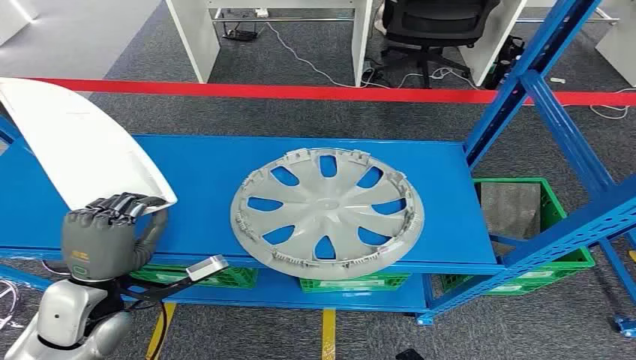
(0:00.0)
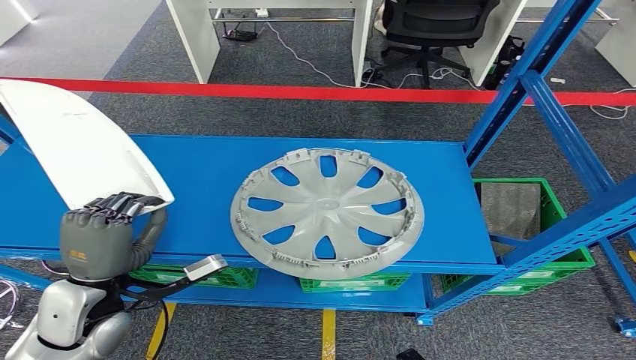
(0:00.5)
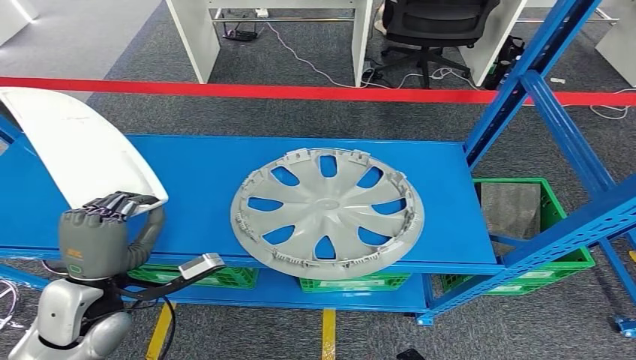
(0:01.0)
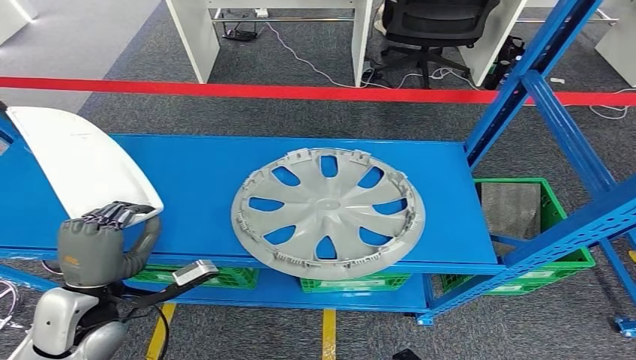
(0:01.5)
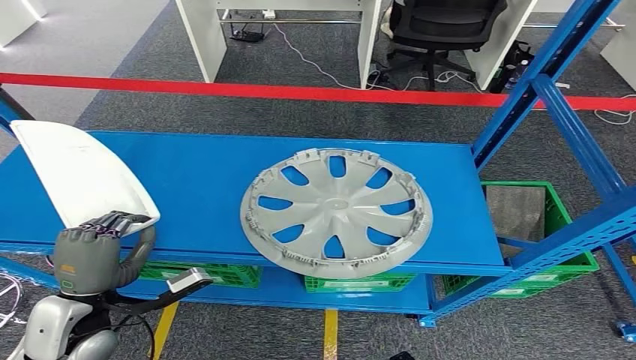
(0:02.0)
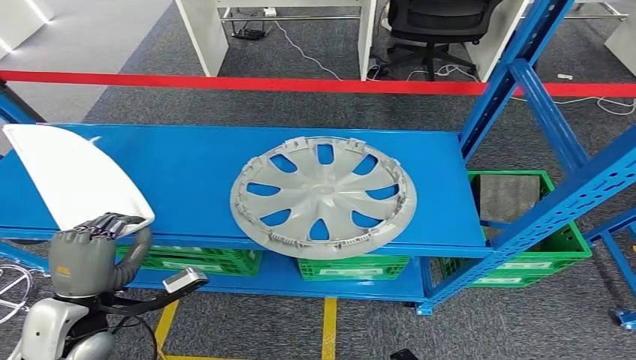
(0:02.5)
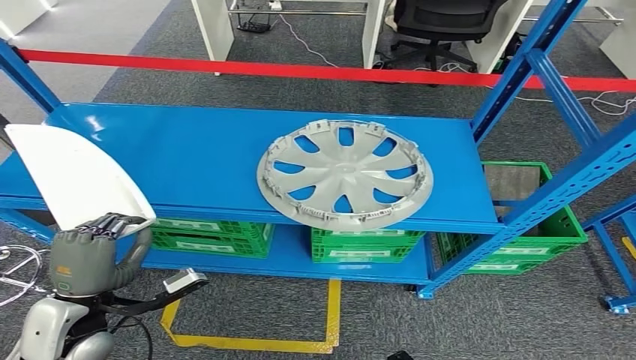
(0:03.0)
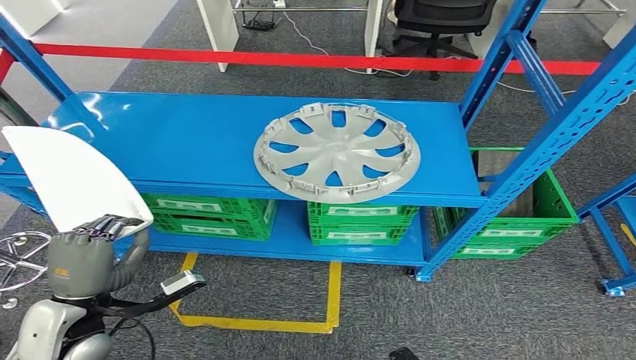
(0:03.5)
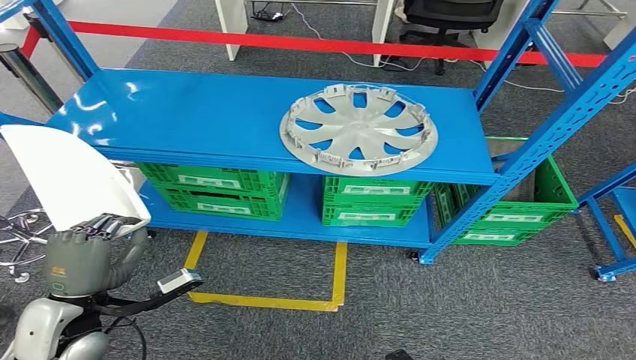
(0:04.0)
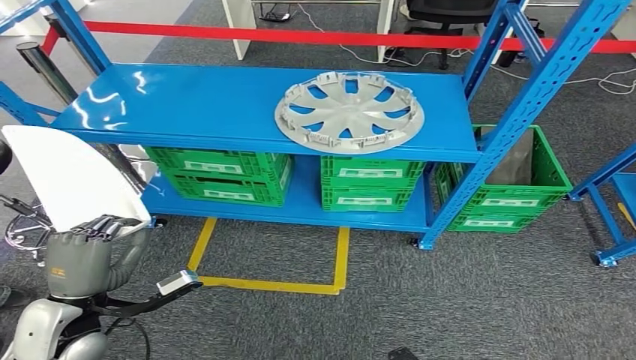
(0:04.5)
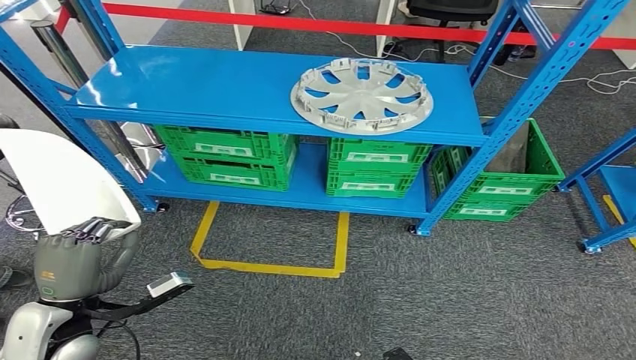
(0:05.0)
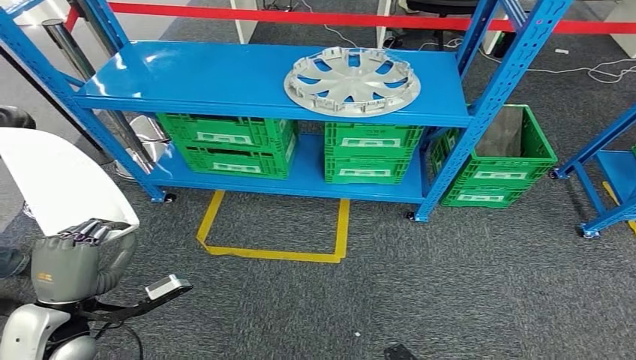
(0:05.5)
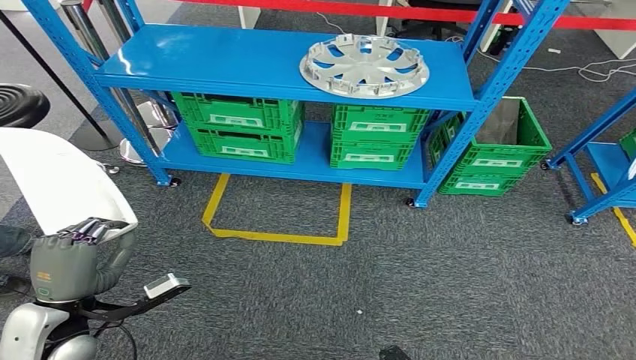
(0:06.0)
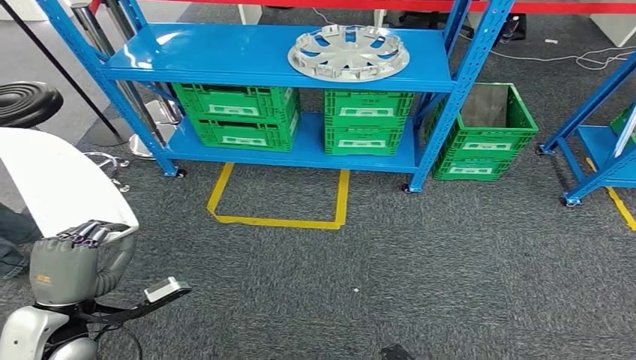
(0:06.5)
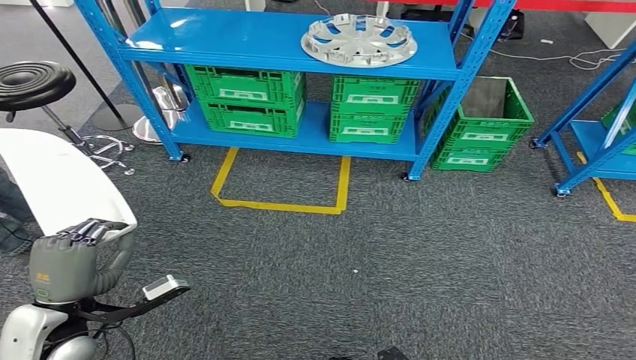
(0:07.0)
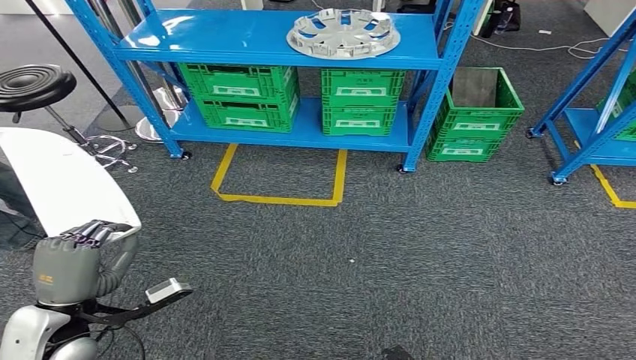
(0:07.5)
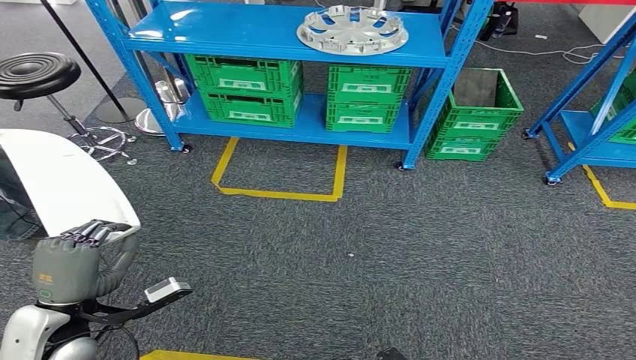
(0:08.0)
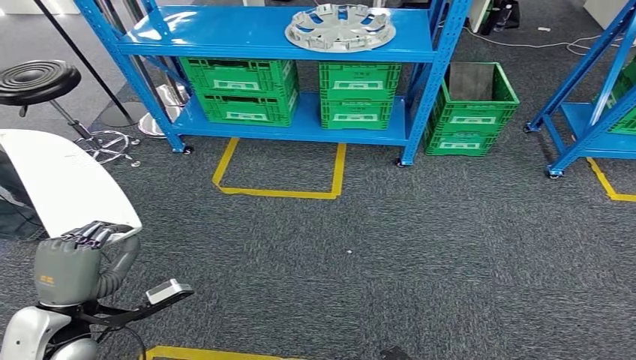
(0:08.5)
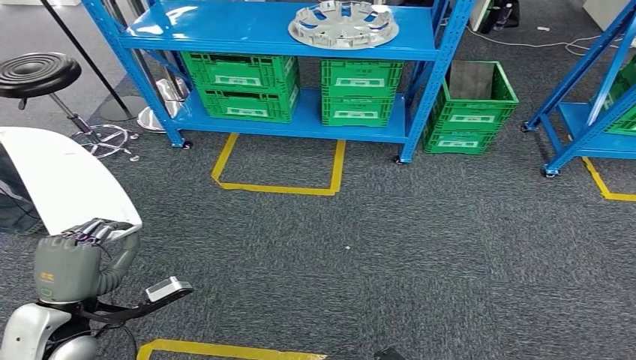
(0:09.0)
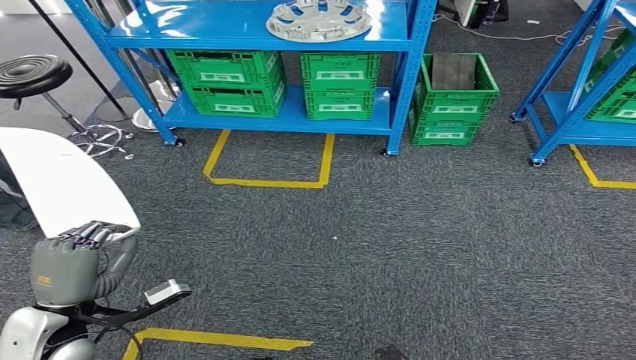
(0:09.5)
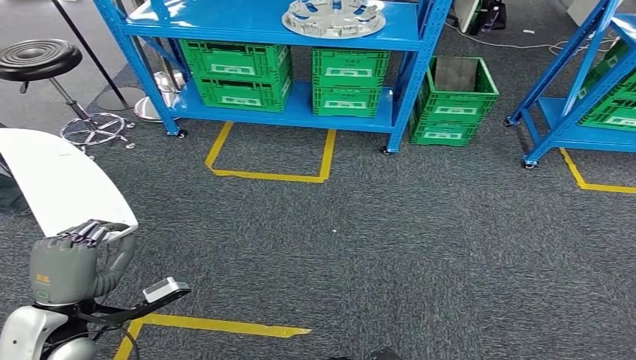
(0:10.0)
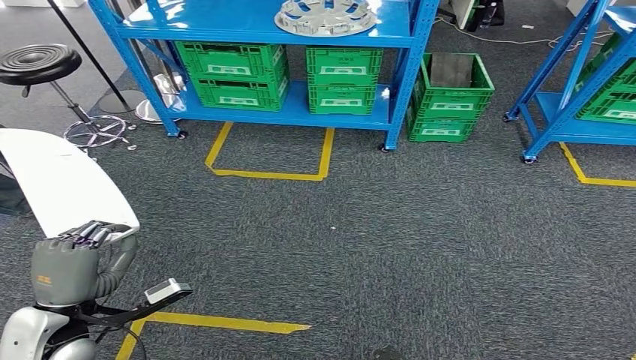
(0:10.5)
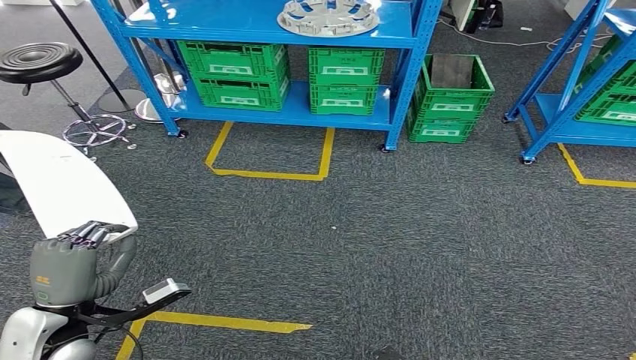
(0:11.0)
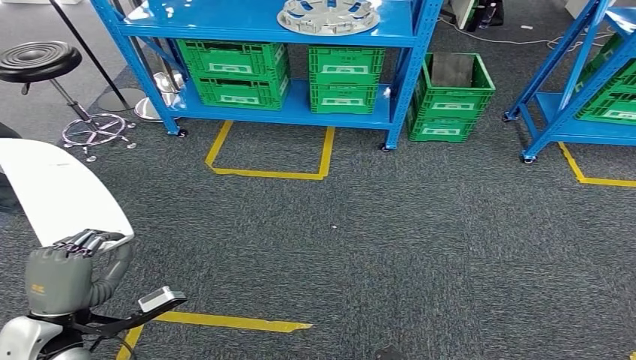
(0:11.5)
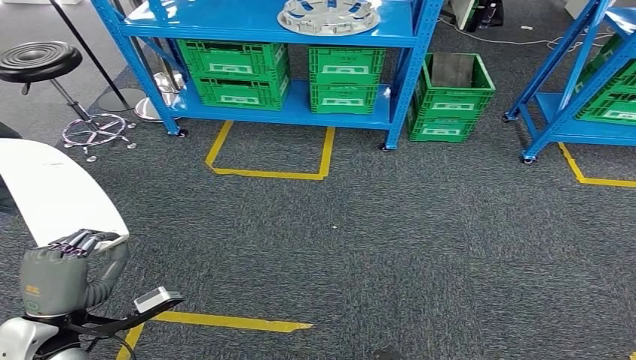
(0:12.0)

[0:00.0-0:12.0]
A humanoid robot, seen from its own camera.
Step, 0:00.0 to 0:01.5: Take small components from the rack.
0:10.0 to 0:12.0: There are only small adjustments of the hands.

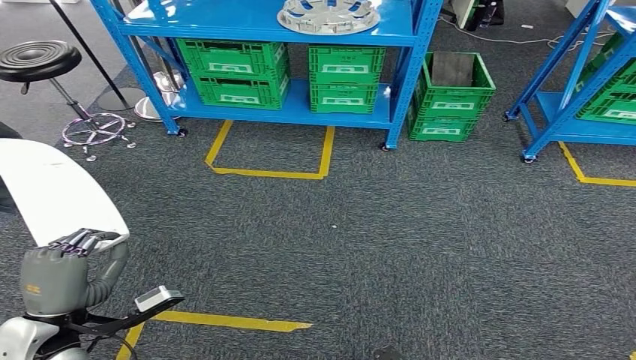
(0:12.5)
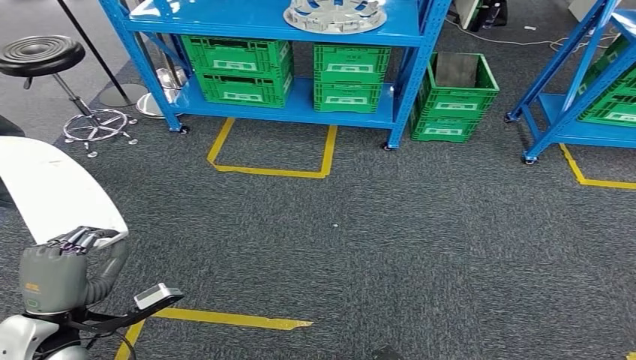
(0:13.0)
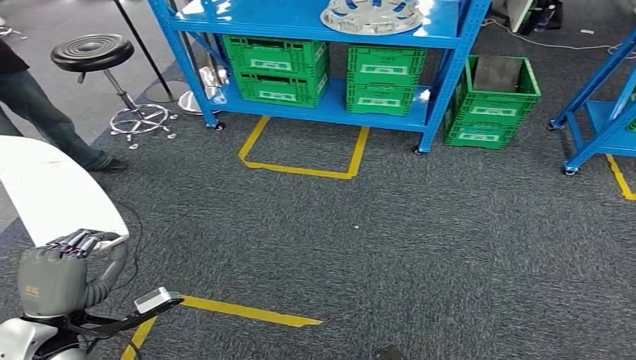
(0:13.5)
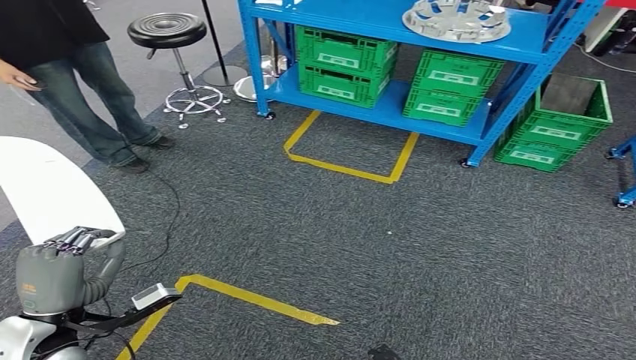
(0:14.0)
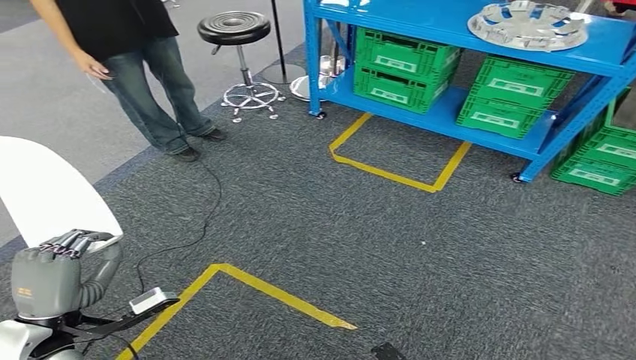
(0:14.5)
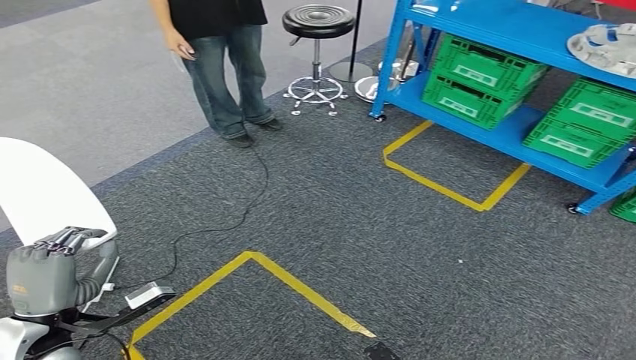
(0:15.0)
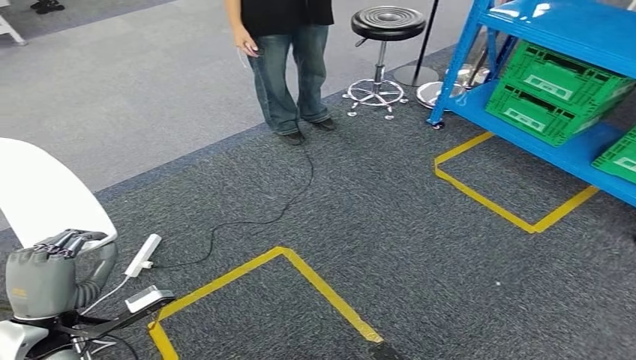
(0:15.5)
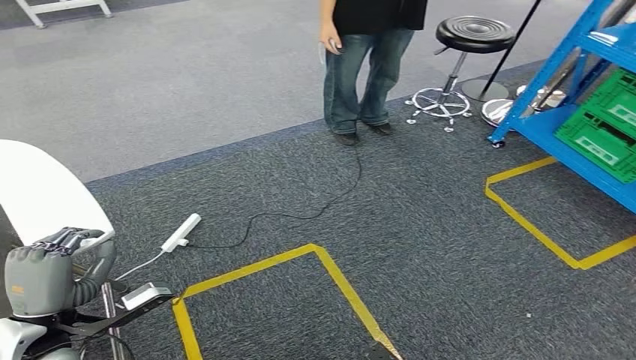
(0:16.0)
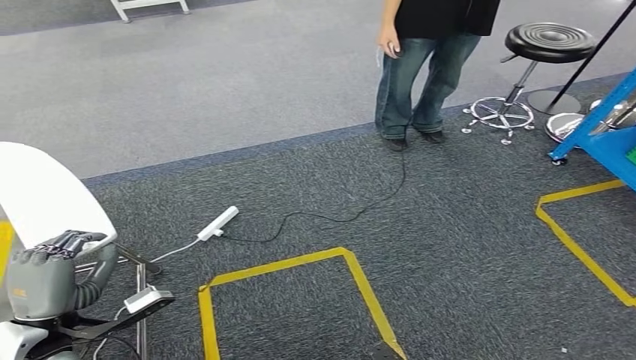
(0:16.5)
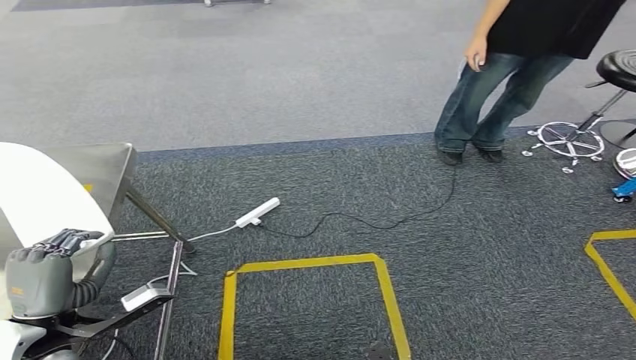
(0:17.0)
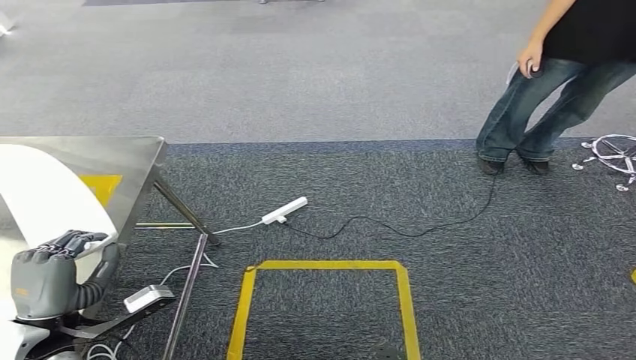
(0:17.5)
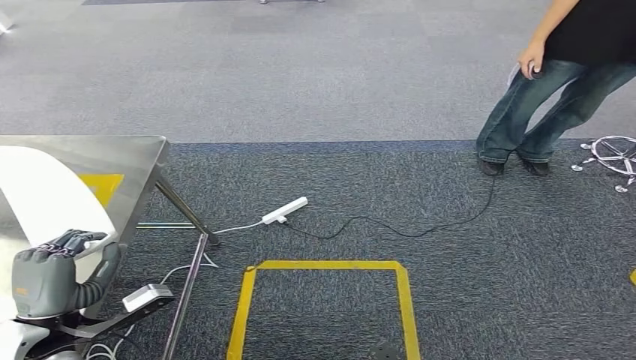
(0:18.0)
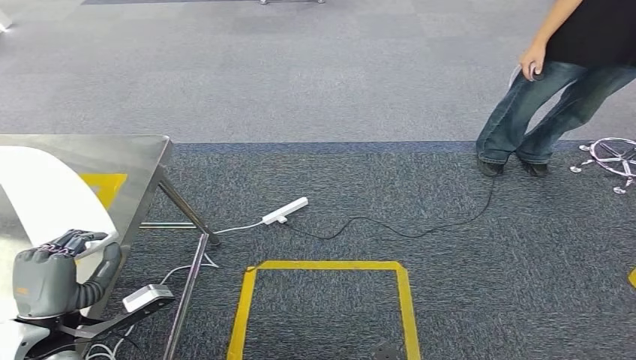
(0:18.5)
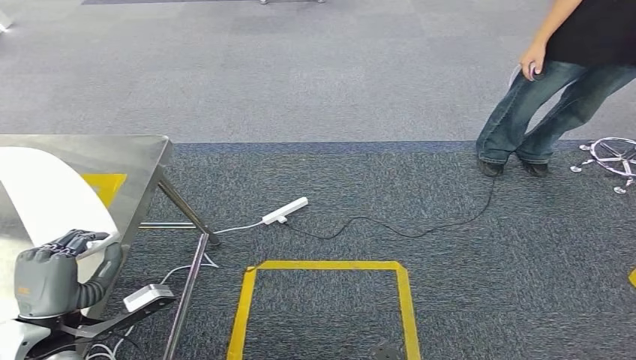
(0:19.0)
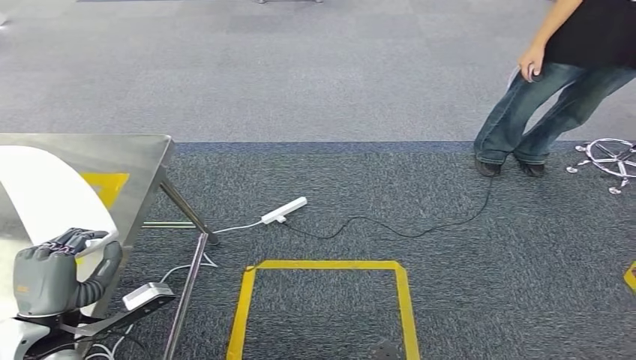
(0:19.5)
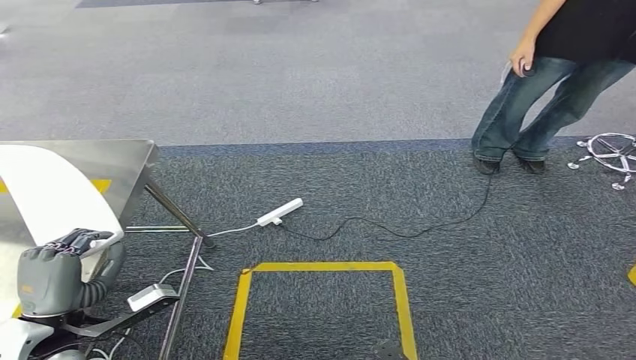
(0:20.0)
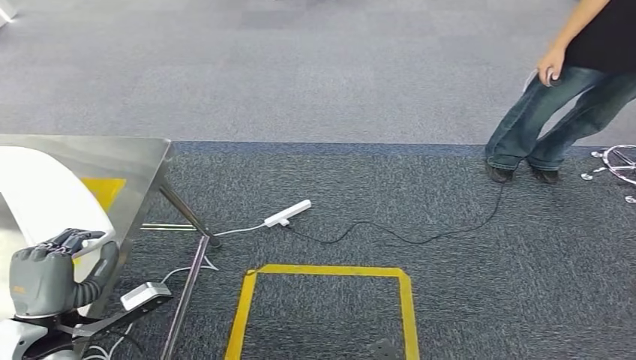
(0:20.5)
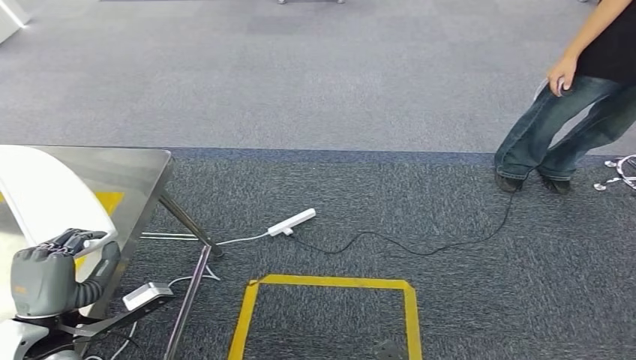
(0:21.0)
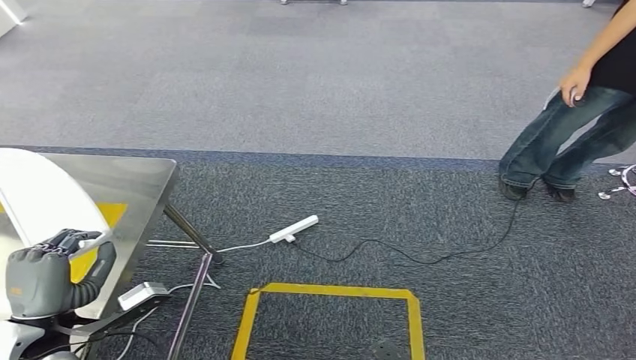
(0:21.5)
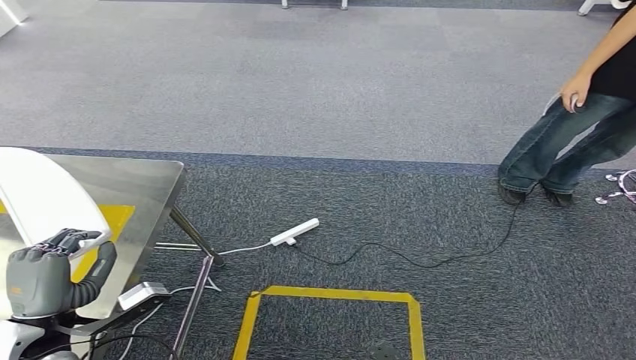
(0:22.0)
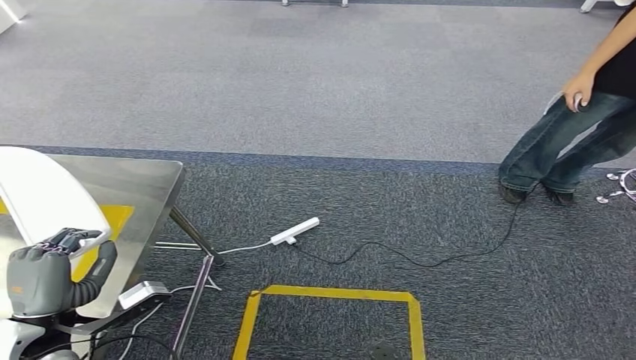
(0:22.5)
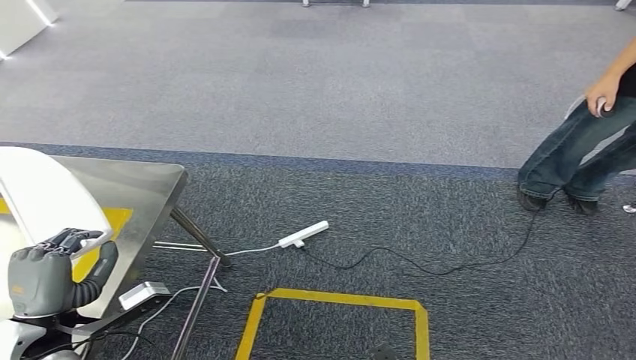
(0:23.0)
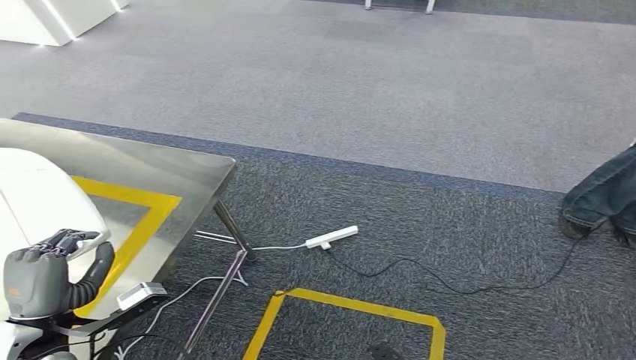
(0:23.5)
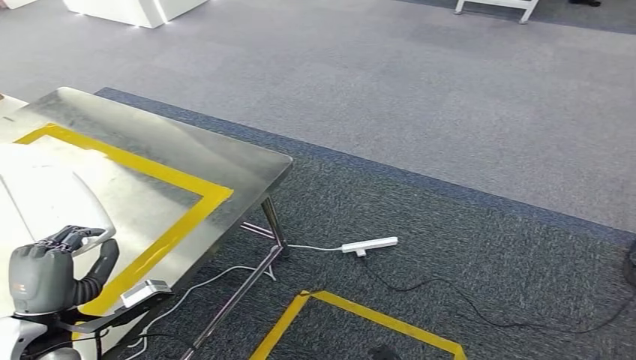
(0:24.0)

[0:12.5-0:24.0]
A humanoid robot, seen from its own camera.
0:18.5 to 0:20.0: Neither hand changes place.
